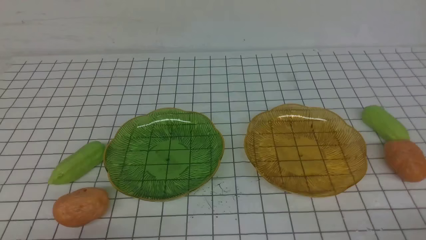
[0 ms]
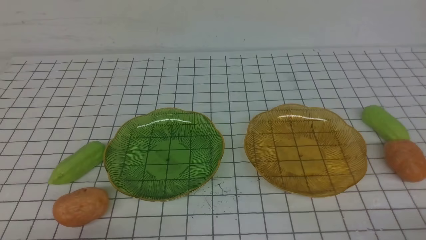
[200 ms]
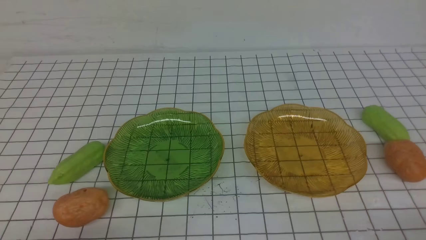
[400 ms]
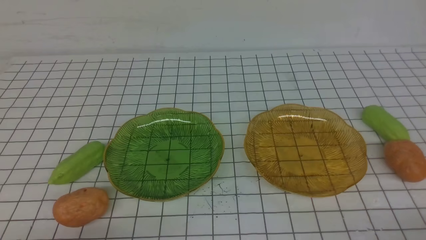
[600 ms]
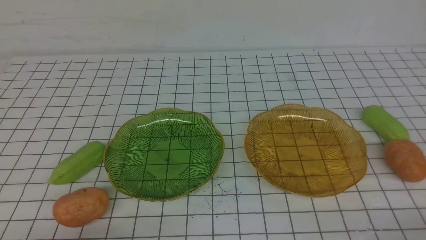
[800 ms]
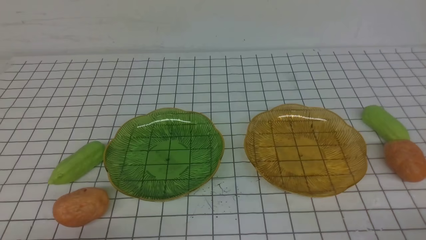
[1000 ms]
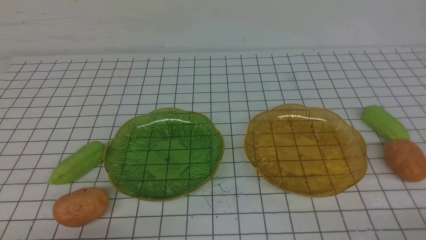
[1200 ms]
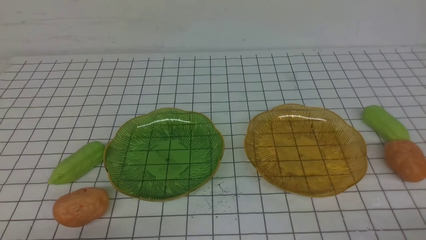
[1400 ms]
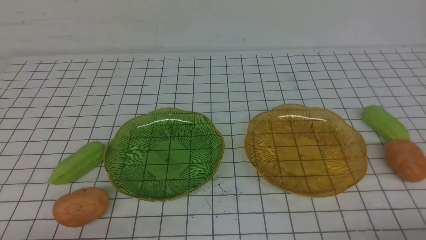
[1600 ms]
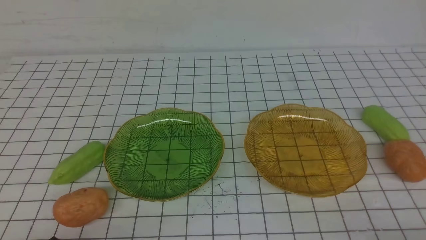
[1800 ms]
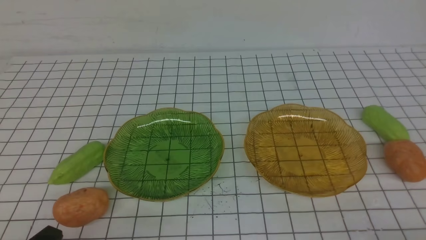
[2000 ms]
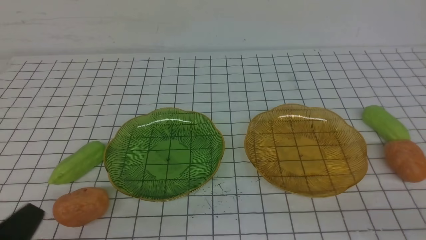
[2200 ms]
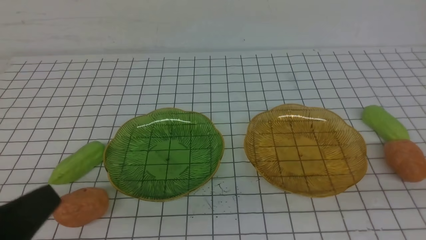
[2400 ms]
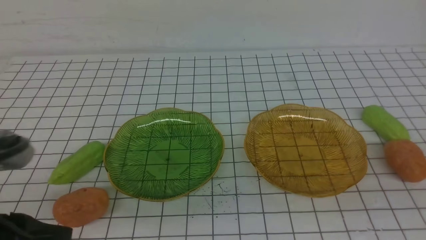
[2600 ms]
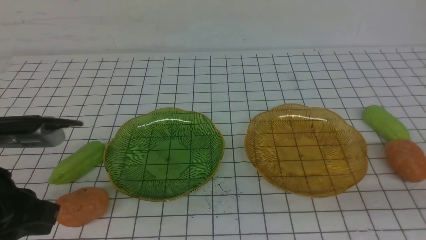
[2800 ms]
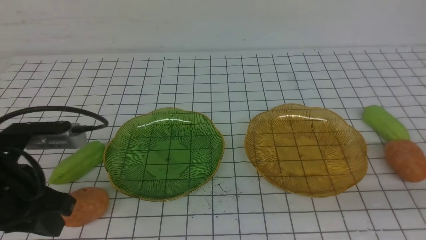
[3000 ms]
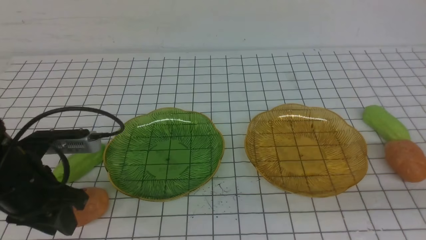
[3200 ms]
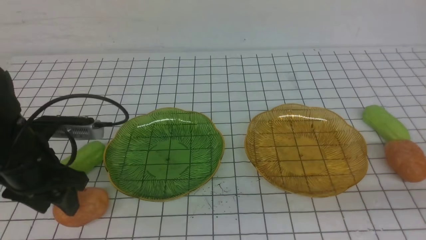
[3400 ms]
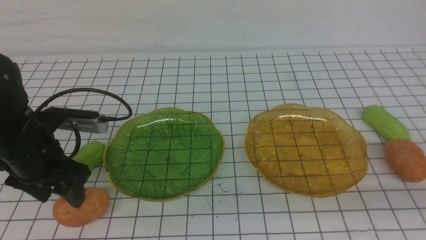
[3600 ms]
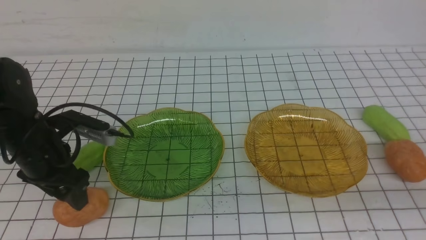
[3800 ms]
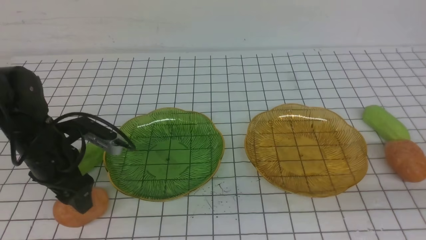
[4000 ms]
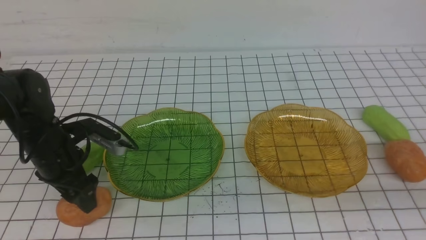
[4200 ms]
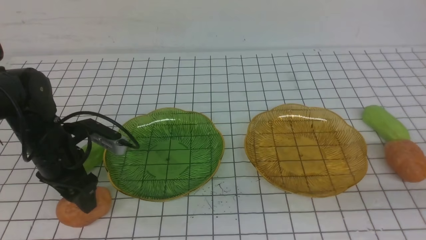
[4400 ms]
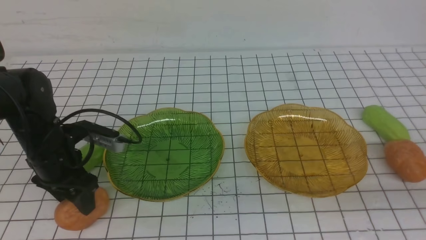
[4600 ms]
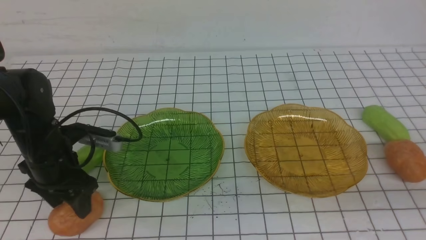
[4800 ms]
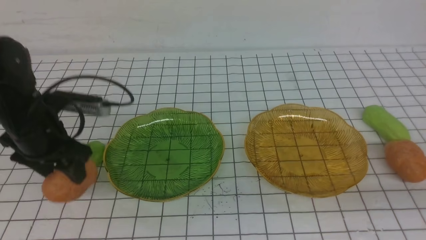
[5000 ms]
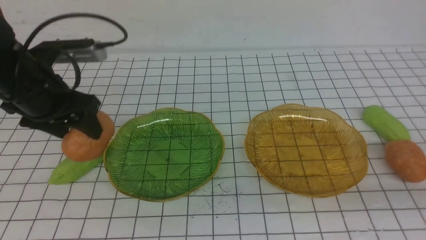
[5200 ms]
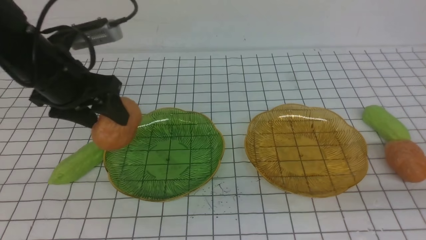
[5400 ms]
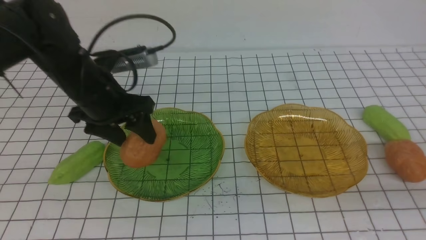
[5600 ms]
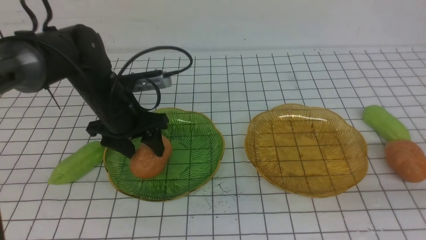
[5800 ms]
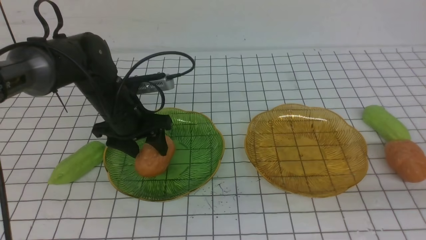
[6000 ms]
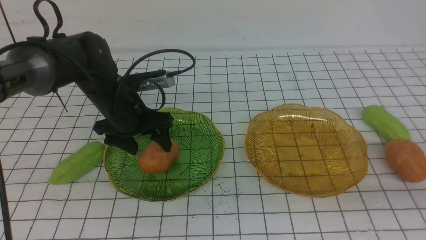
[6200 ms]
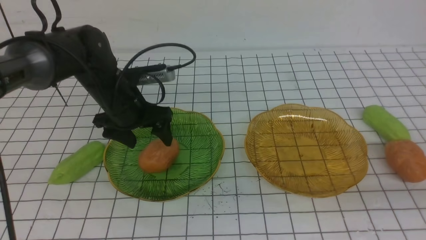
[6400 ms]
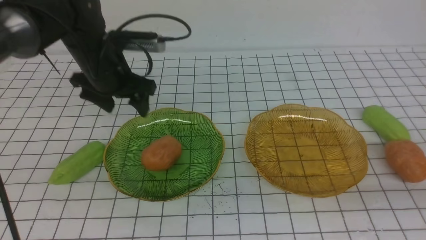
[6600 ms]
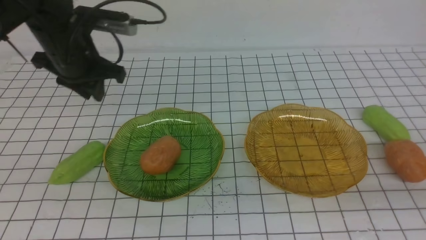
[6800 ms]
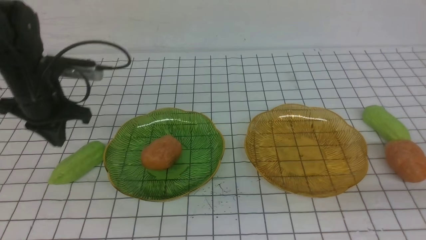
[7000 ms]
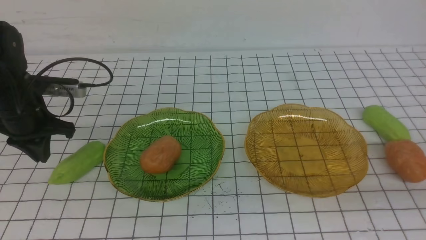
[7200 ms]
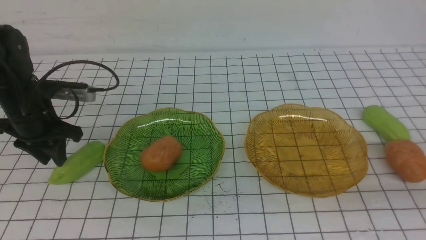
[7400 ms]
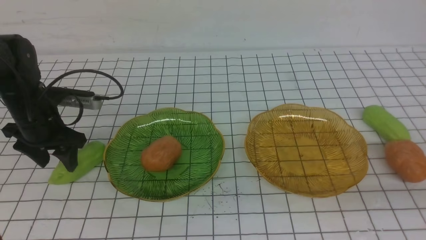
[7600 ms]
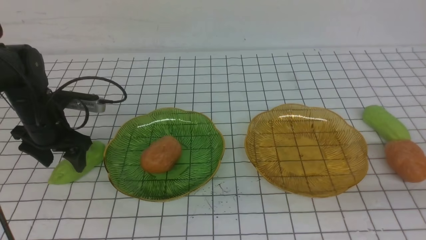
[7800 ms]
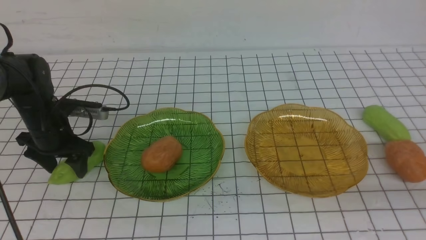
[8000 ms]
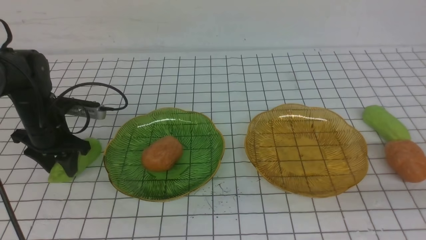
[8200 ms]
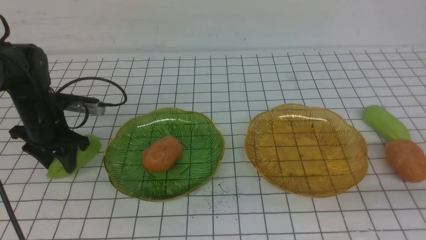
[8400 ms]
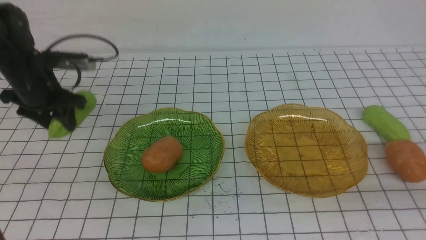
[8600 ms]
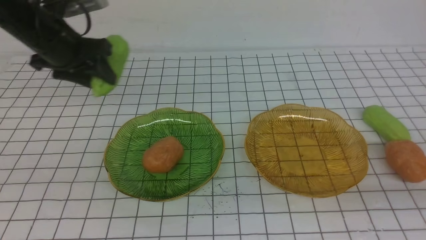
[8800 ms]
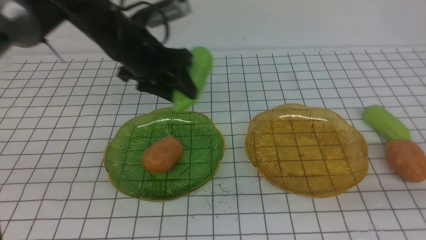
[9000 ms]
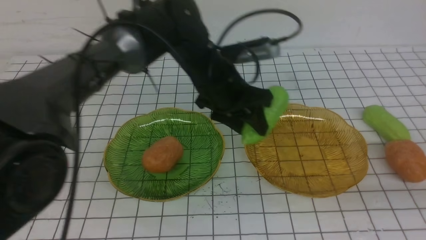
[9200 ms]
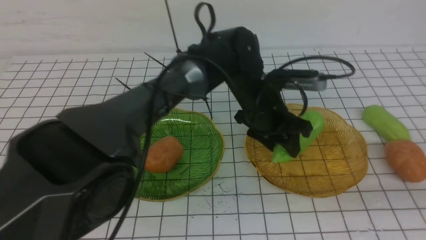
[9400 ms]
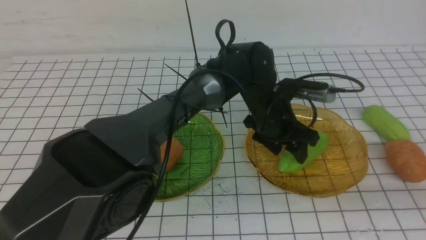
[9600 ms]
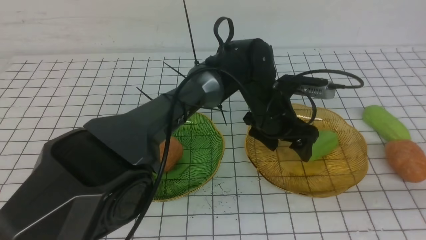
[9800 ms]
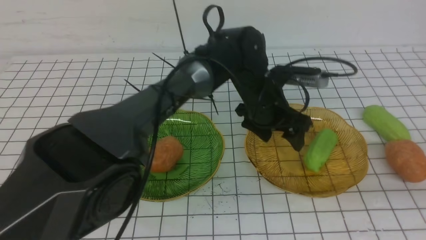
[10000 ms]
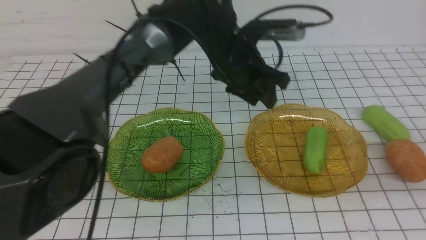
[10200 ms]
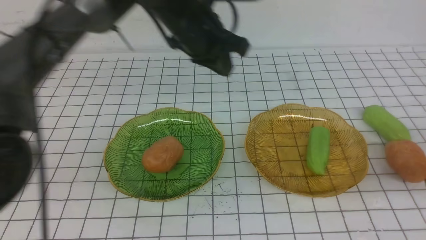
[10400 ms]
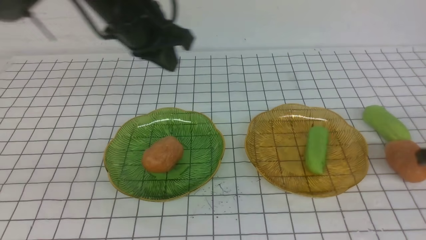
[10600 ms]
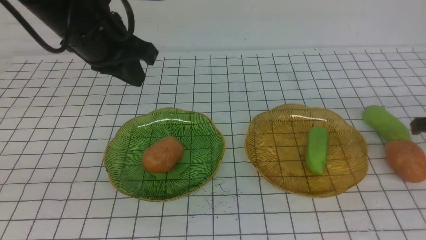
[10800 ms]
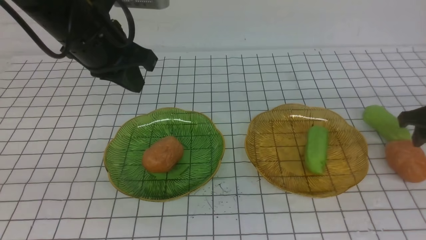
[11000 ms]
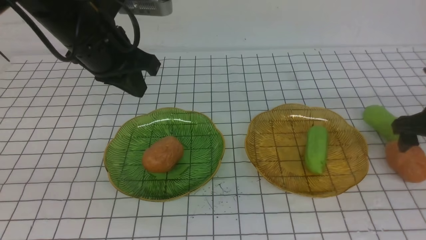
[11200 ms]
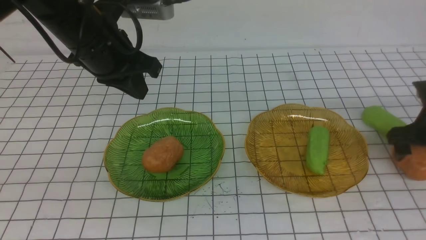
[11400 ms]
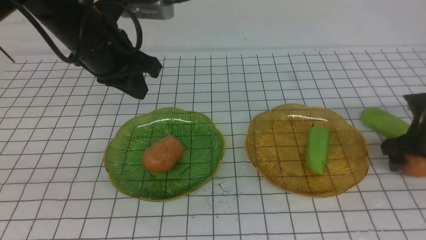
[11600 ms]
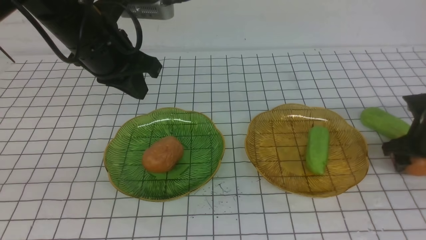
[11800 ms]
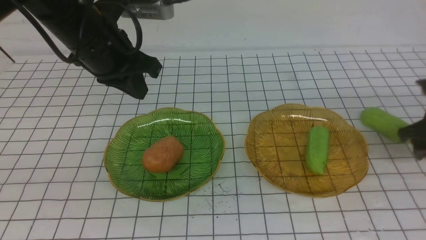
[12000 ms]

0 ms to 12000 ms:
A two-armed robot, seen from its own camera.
Step, 0 ms to 6200 ms: Grab a potato with your left arm and put it on the left plate.
Step, 6600 ms to 9800 ms: use the left arm to grab a chayote and put it into the right plate.
1600 ms to 3000 ms: The left gripper is displaced forward and upward by some 20 cm, while the right gripper is displaced upward by roughly 15 cm.
3000 ms to 4400 ms: The left gripper is displaced forward and downward by about 15 cm, and opens up.
4400 ms to 6000 ms: The left gripper is displaced to the right and forward by roughly 10 cm, and reaches approximately 10 cm upward, then returns.
6000 ms to 7600 ms: The left gripper shifts roughly 15 cm to the left, and closes, then opens again.
7600 ms to 9000 ms: The left gripper goes roughly 20 cm to the right and upward.
9000 ms to 10400 ms: The left gripper heads upward, covering roughly 5 cm, reaches approximately 20 cm to the right, then returns, and closes its fingers. The right gripper goes about 10 cm forward and downward.
10400 ms to 12000 ms: The left gripper heads to the left, covering roughly 10 cm. Meanwhile the right gripper shifts some 15 cm forward, and opens up.

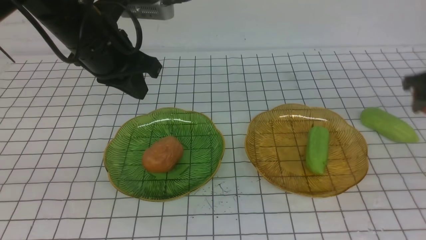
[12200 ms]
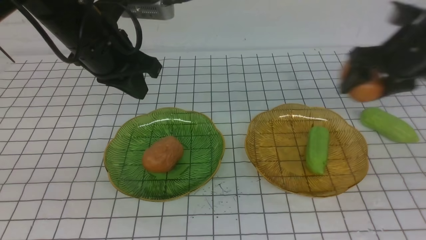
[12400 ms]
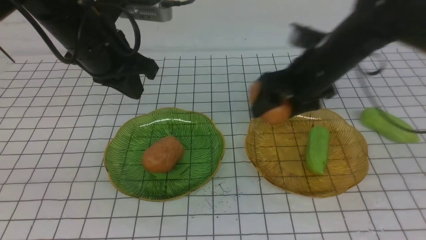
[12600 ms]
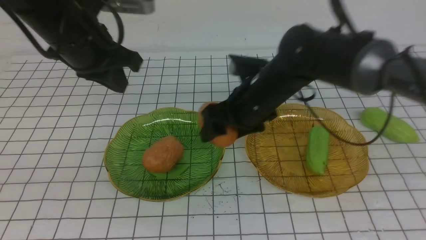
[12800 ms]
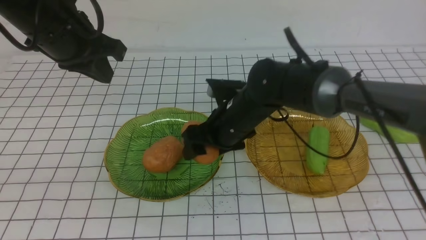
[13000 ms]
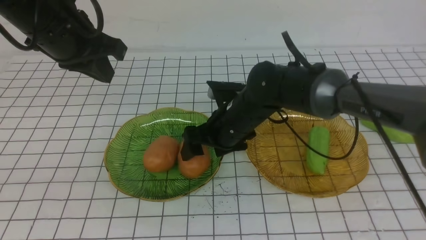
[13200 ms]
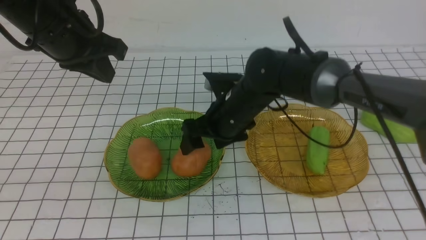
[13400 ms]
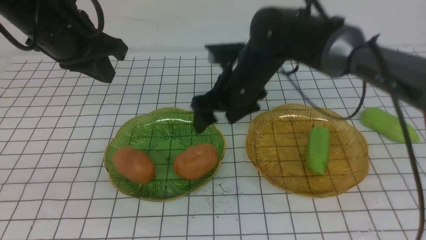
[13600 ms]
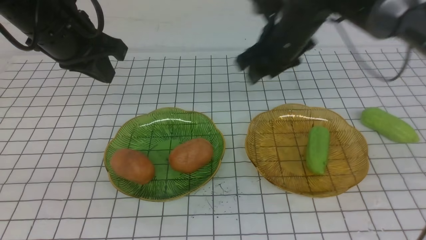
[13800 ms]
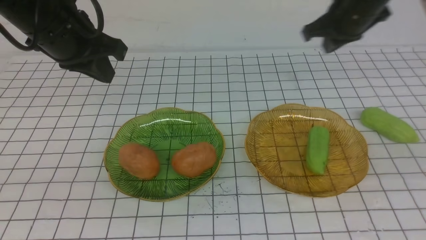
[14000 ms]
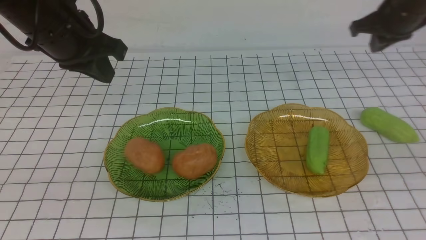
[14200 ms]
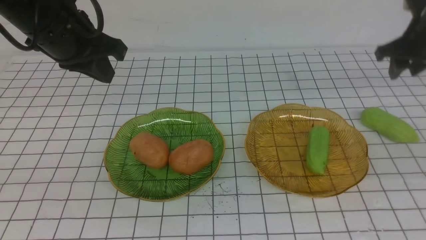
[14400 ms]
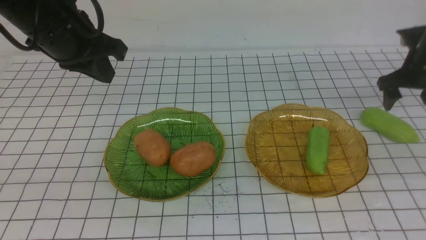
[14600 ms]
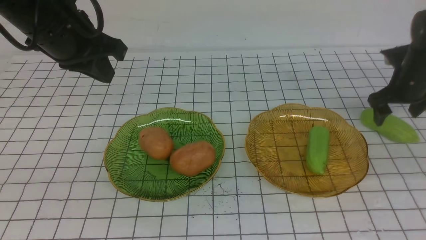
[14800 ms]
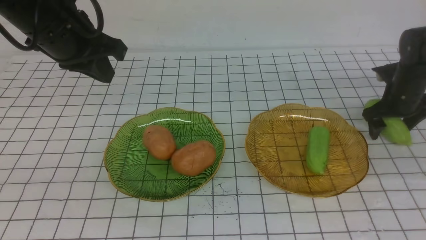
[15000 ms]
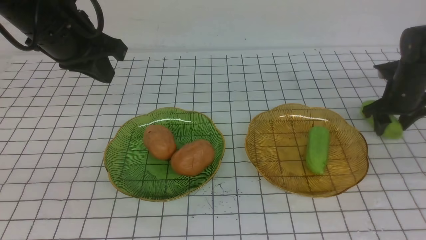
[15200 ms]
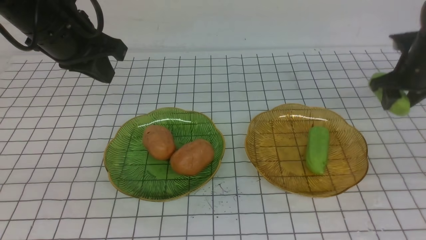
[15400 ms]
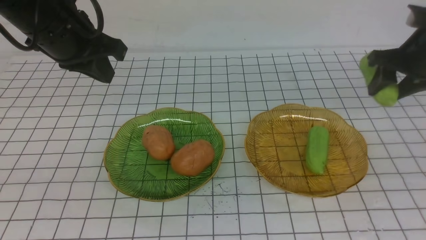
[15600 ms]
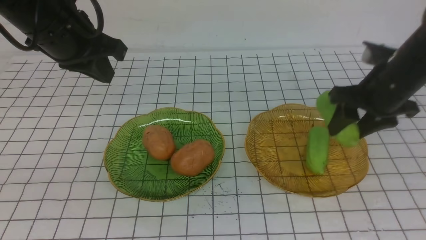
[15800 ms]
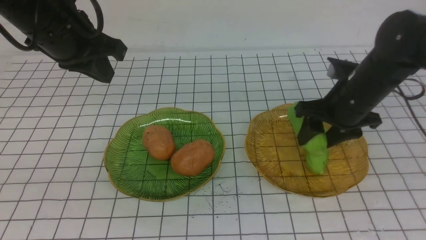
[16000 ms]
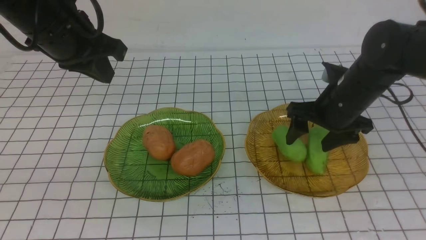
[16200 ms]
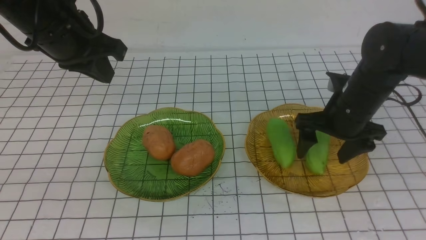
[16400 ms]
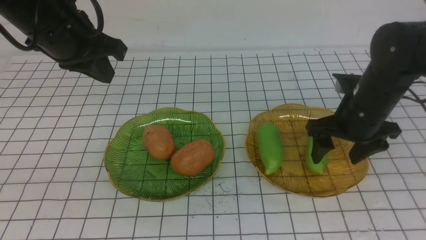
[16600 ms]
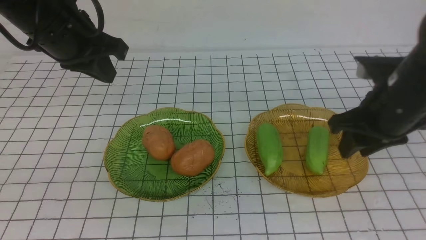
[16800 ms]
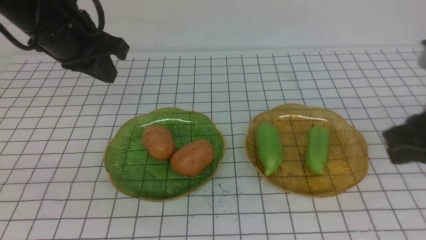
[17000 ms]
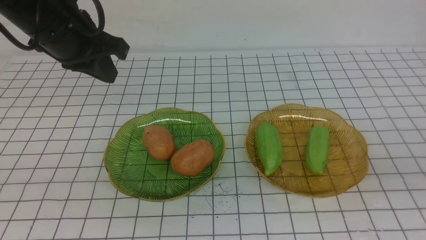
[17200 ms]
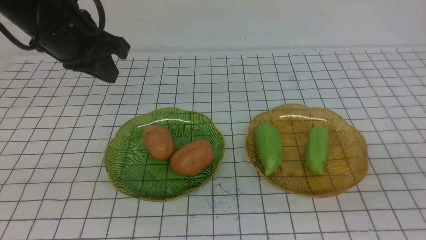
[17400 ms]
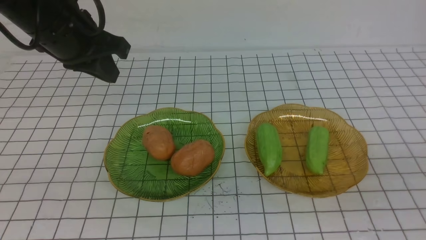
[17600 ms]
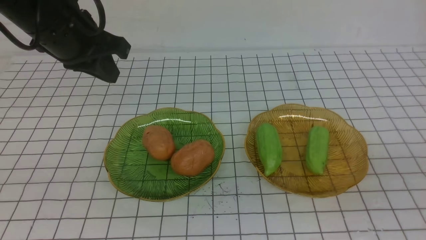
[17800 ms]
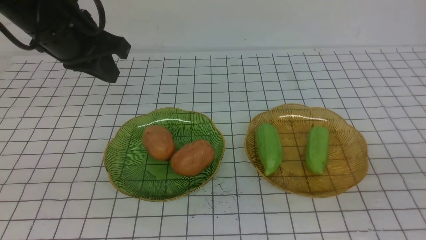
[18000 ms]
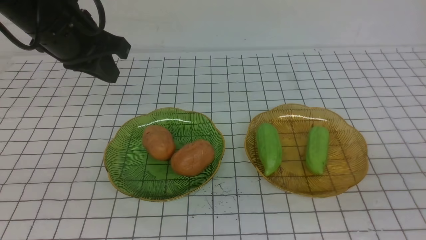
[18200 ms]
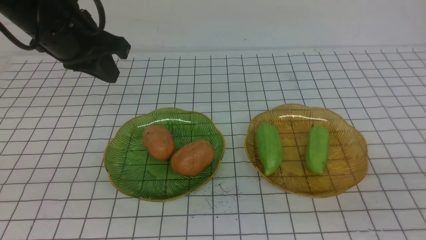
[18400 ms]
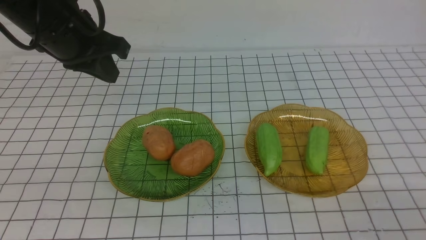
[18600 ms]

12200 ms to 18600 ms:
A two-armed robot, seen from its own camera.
Step, 13400 ms to 16200 ms: use the right arm to grab a chayote and put it into the right plate.
12200 ms to 13800 ms: The right gripper goes roughly 20 cm to the left, and closes its fingers.
13800 ms to 15400 ms: The right gripper moves to the right, some 20 cm, and opens, then closes once more.
15400 ms to 17000 ms: The right gripper shifts some 25 cm backward and upward, and closes up.
17000 ms to 18600 ms: The right gripper goes approximately 20 cm backward and downward.
